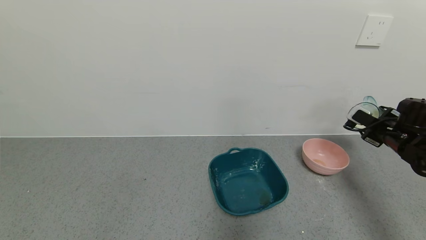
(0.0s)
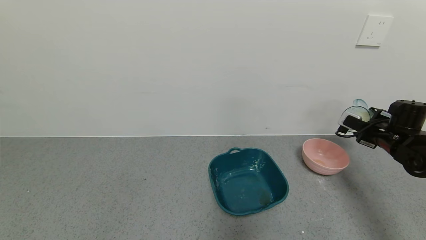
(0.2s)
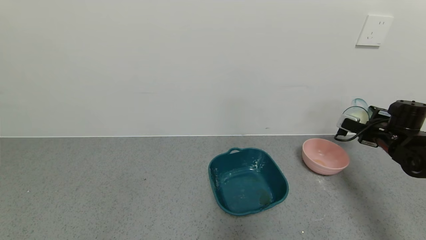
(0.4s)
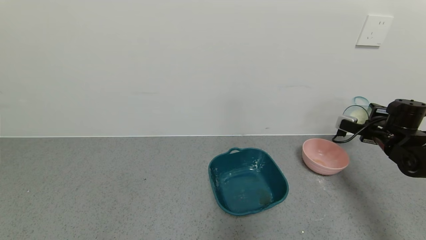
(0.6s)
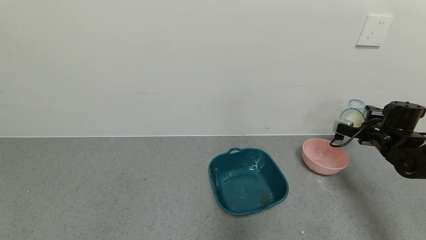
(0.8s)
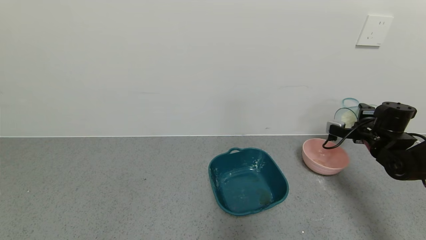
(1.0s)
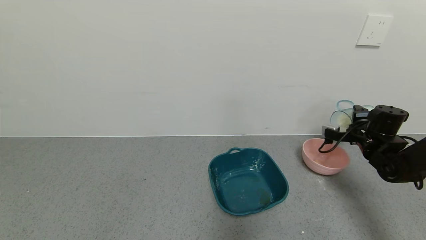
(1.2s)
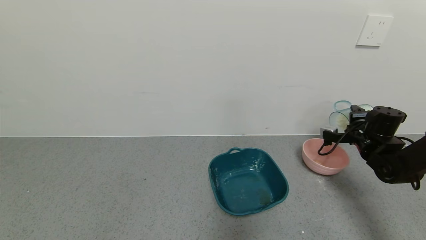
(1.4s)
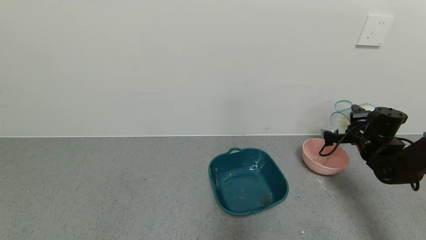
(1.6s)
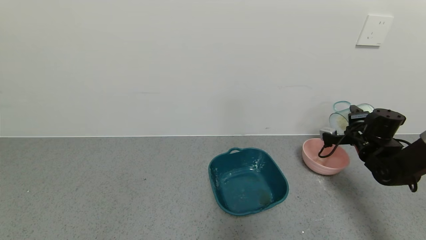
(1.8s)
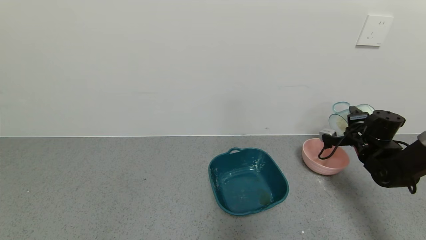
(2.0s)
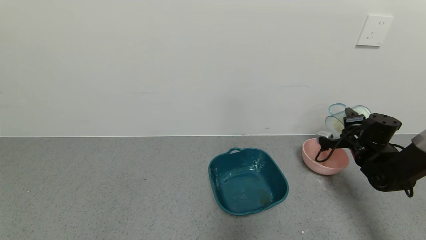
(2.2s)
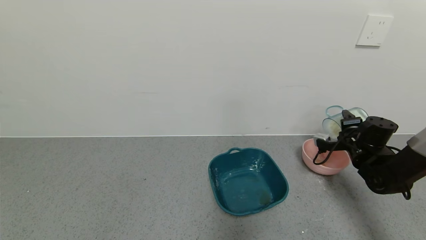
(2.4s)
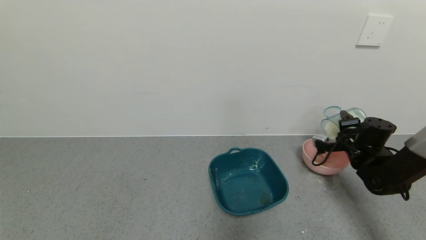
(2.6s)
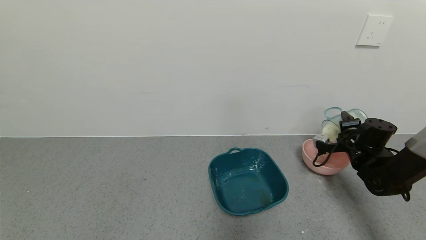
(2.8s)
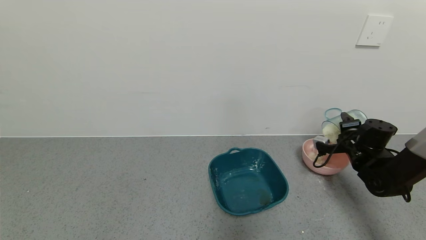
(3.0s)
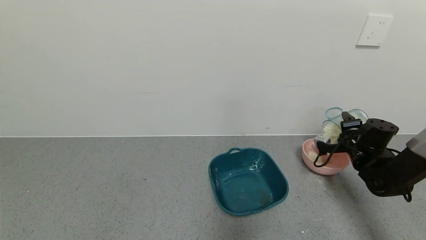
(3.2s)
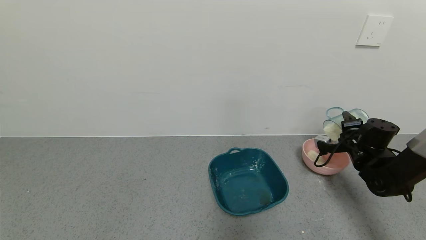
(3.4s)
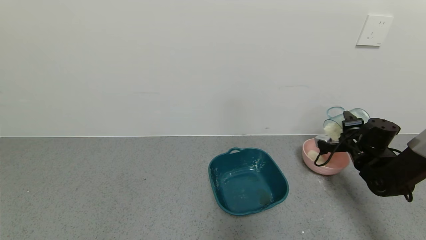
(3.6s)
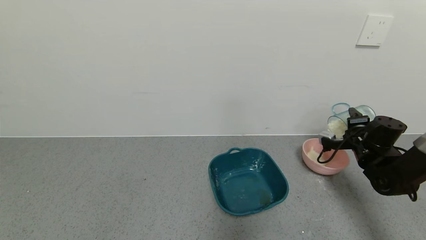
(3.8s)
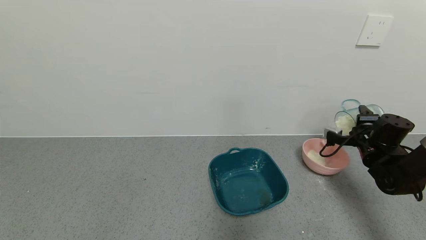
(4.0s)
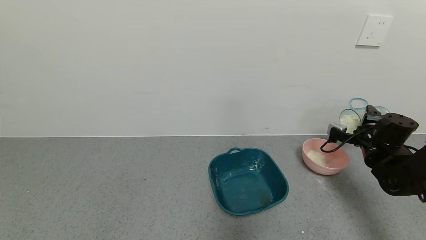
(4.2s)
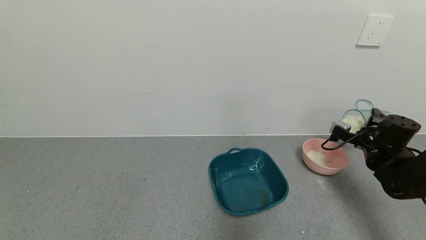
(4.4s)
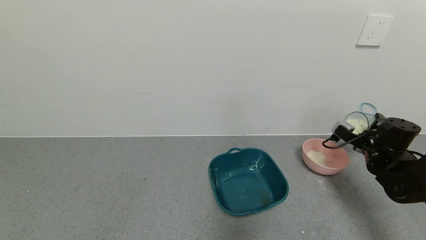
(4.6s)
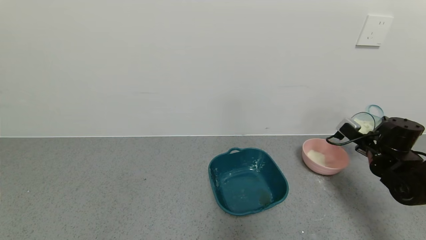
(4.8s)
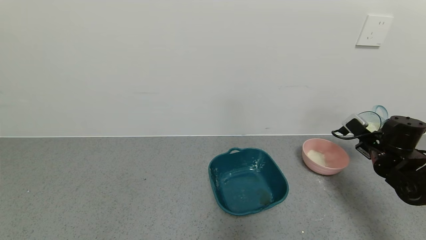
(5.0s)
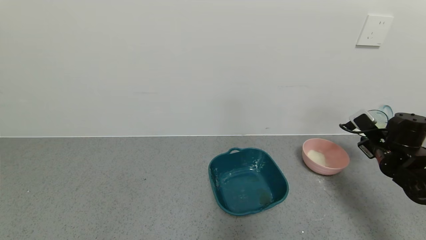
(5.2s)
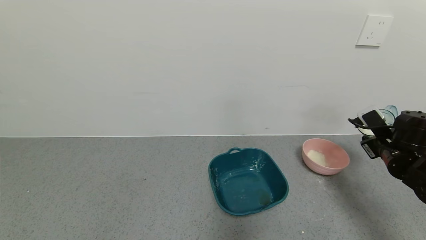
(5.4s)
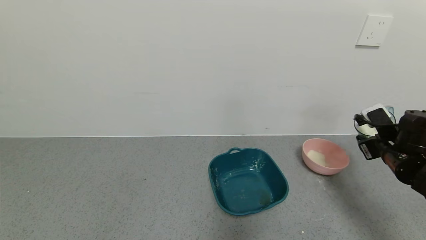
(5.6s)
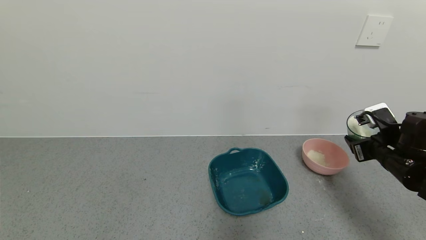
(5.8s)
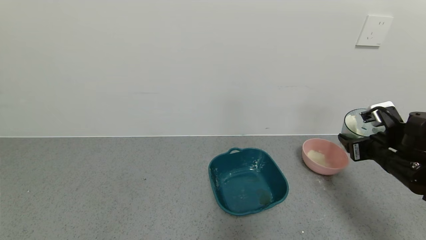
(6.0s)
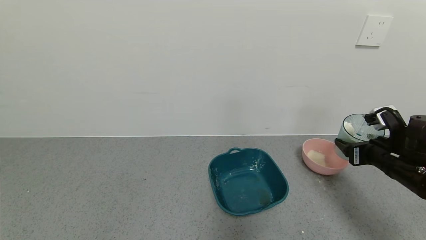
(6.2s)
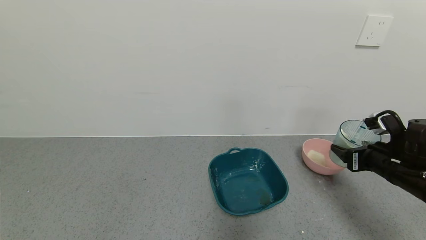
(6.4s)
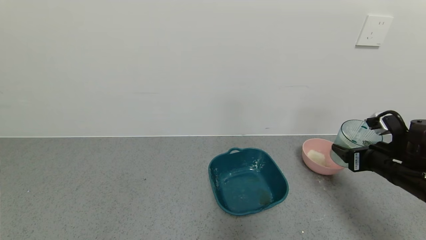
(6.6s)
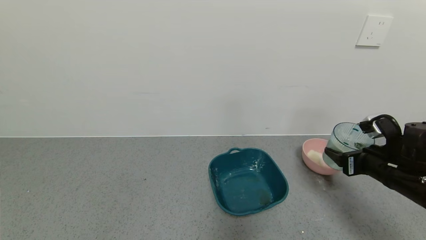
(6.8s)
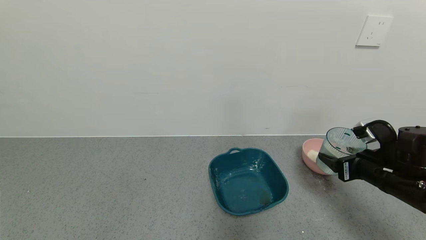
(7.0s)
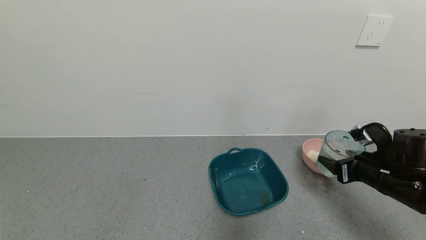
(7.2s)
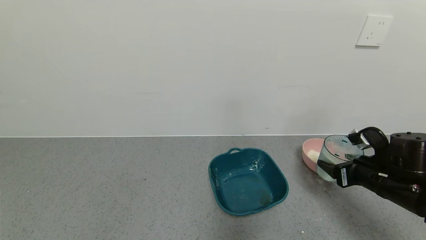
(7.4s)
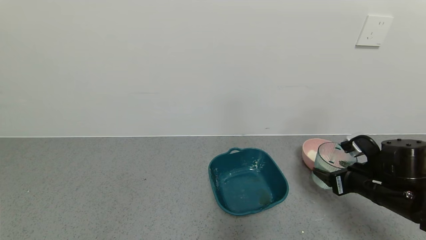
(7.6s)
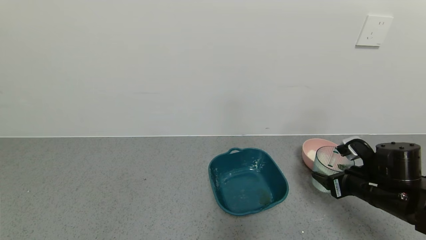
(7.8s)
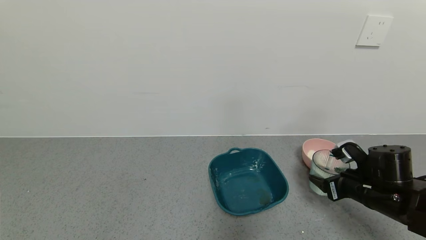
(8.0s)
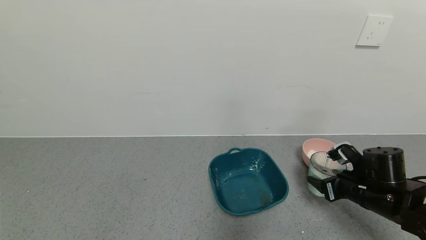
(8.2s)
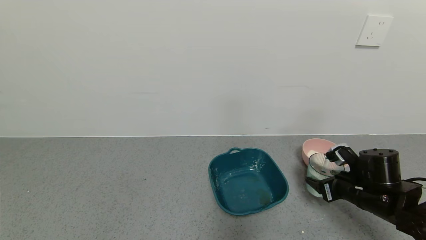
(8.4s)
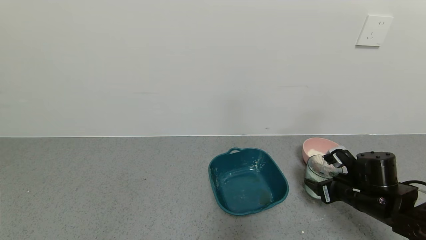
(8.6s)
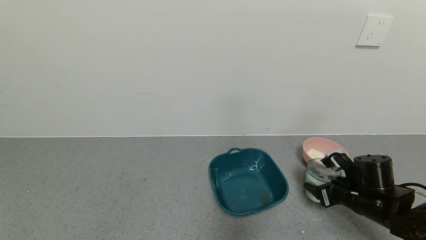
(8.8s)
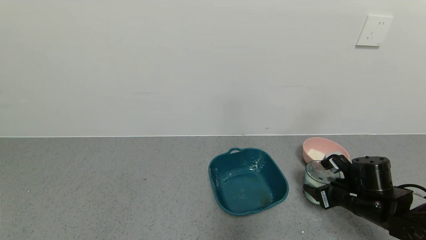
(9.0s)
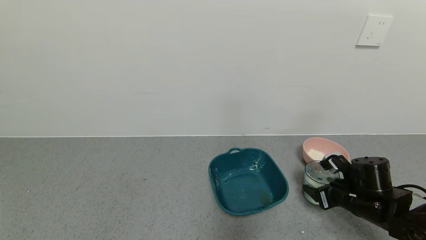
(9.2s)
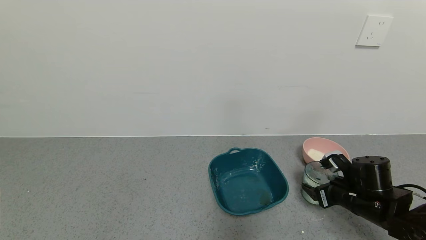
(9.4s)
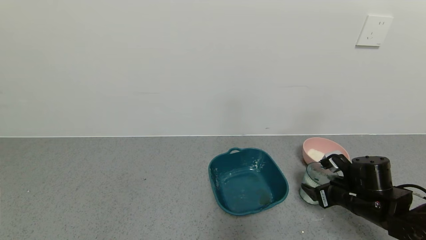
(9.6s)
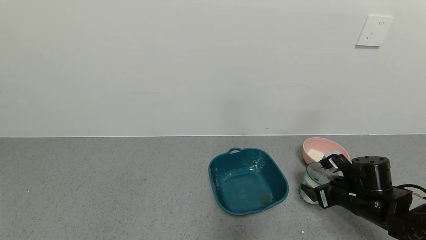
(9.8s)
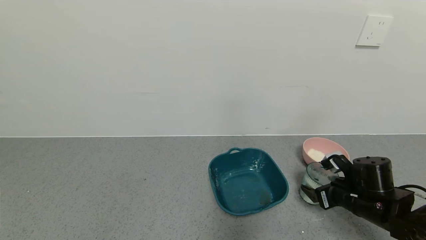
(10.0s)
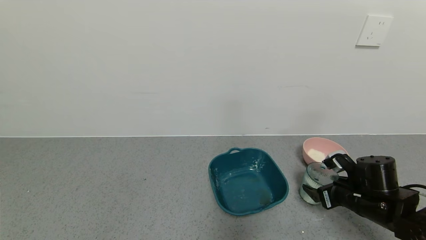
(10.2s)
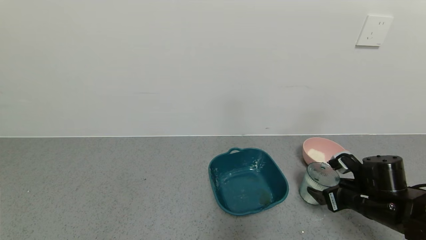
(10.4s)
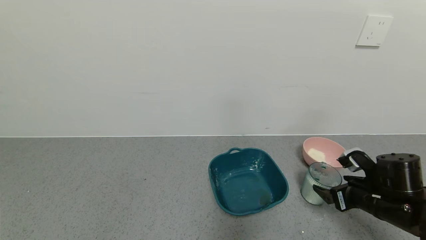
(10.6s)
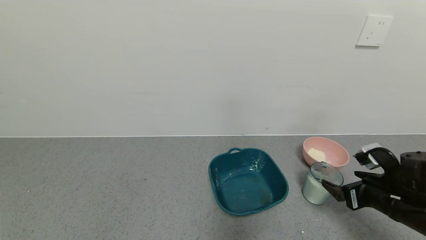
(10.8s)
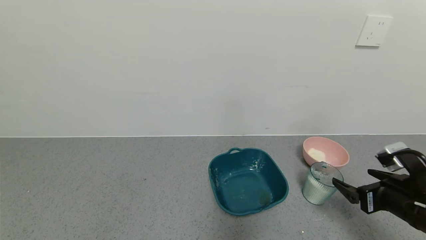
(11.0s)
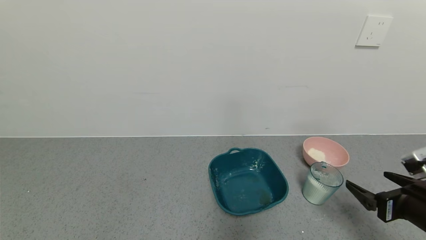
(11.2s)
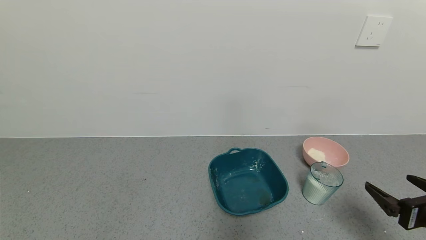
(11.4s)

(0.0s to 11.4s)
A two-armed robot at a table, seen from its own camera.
Task of the whole recording: use a gripper to pick up the cup and pour the powder into a bowl or tray.
Step, 0.0s - 4.0s: Pour the milk powder into the pink bowl with right gripper.
Step, 4.2s - 9.2s: Place blue cup with milk powder on the table with right gripper.
0.0s - 1.4s: The right gripper moves approximately 5 cm.
1.4s - 4.2s: There are only small adjustments of the grippers.
4.2s - 5.6s: The right gripper shifts approximately 10 cm backward.
5.6s - 7.2s: The right gripper ends up approximately 5 cm from where it was.
7.2s - 8.6s: The right gripper travels downward by some 5 cm.
8.6s - 10.0s: The right gripper opens up.
10.0s - 11.4s: The right gripper is displaced backward, upward and to the right by about 15 cm.

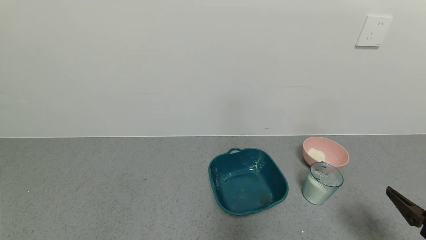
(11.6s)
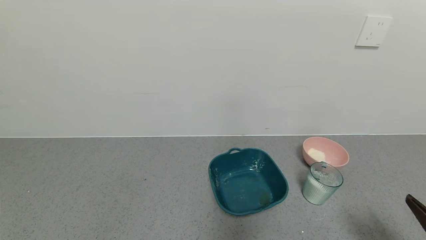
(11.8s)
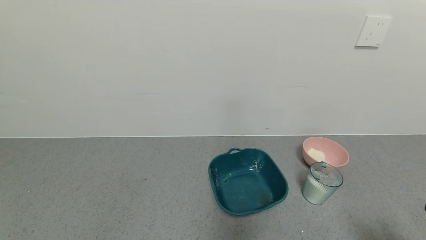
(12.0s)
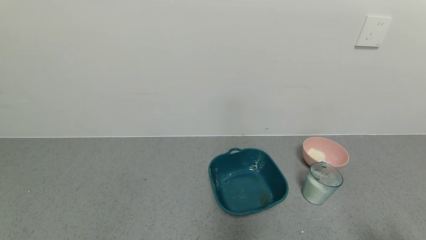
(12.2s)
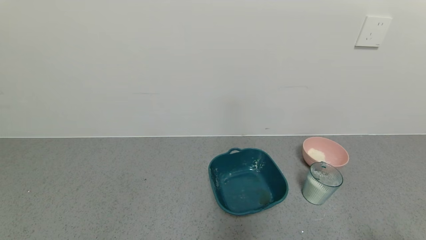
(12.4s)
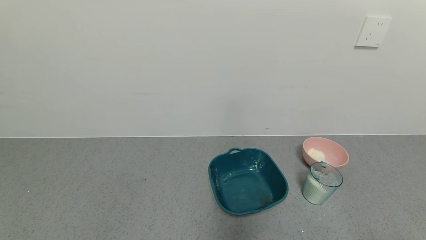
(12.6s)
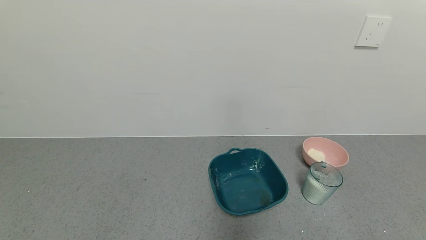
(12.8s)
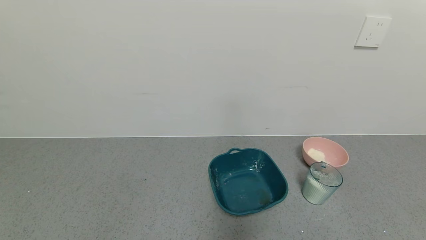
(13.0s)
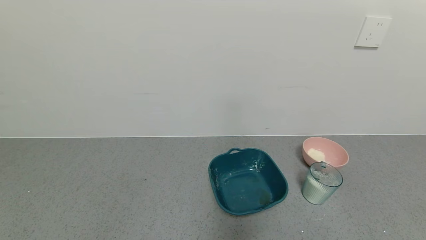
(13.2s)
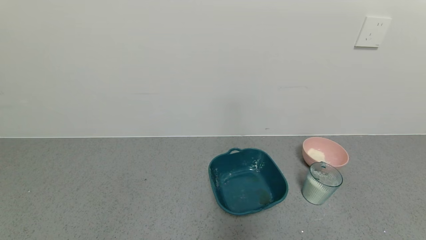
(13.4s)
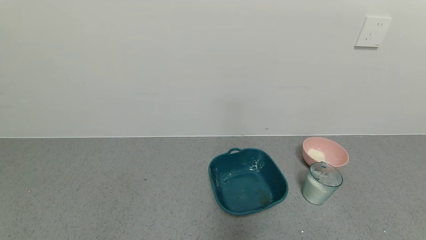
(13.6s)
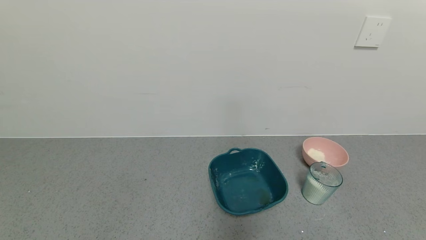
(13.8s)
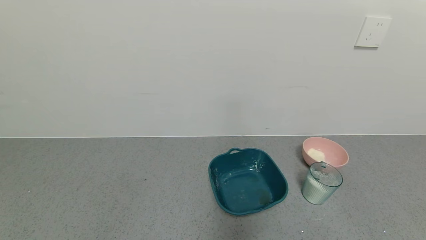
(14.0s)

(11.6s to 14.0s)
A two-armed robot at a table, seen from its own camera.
Task of the whole recording: use a gripper to pick up the cup and pour the powder into a bowl or tray.
11.6s - 12.8s: The right gripper moves backward, approximately 10 cm.

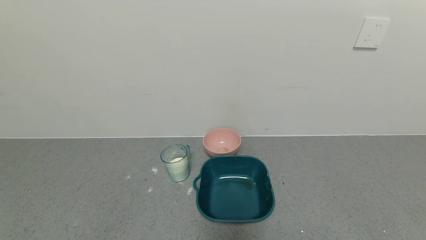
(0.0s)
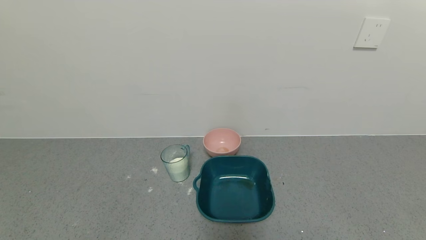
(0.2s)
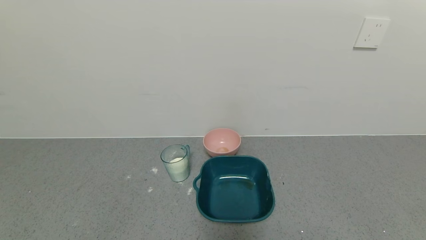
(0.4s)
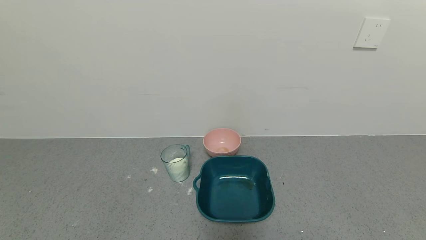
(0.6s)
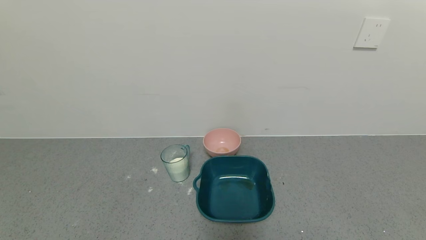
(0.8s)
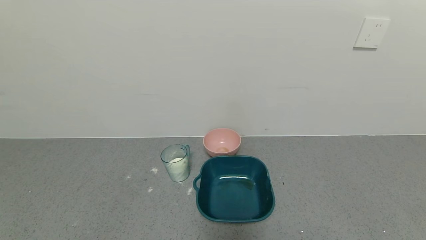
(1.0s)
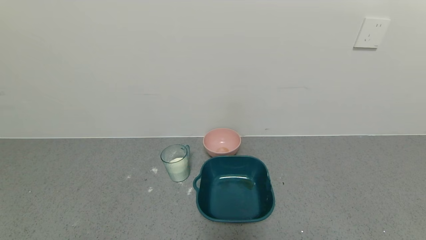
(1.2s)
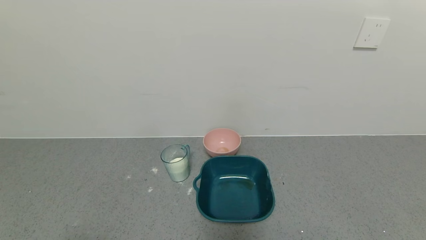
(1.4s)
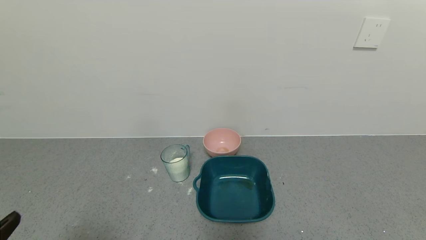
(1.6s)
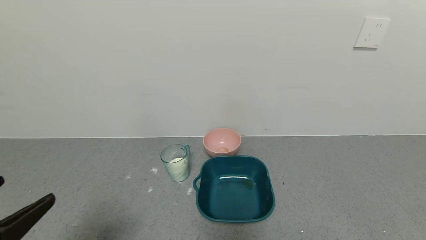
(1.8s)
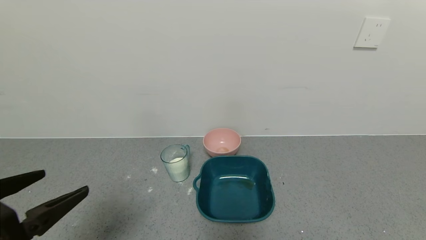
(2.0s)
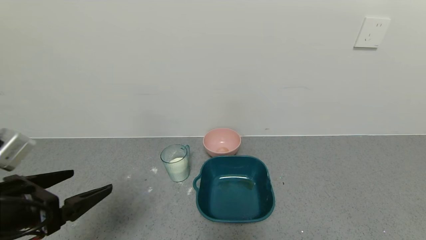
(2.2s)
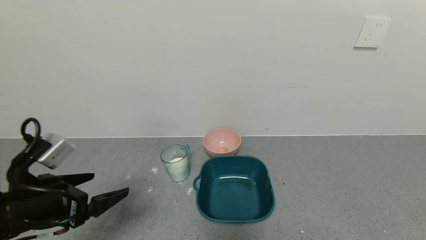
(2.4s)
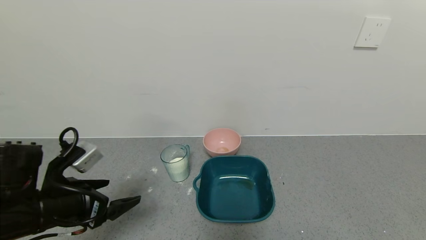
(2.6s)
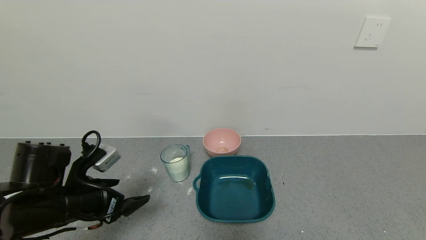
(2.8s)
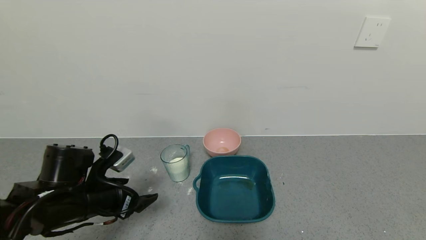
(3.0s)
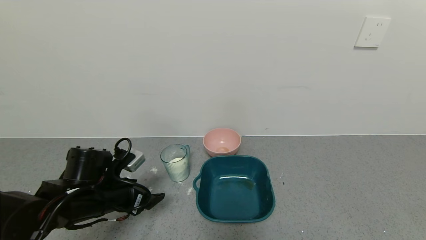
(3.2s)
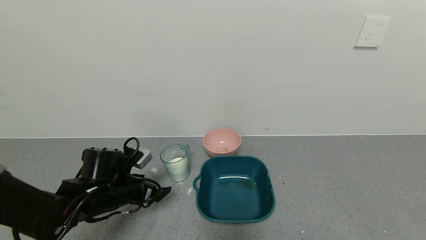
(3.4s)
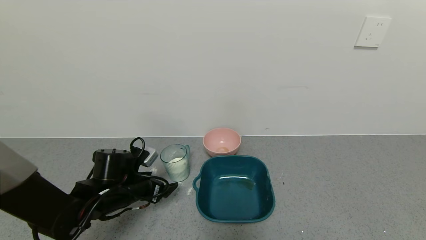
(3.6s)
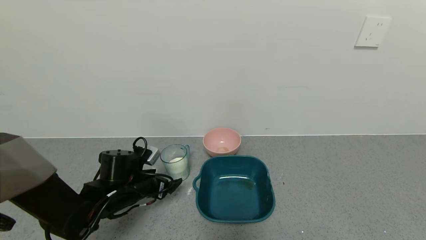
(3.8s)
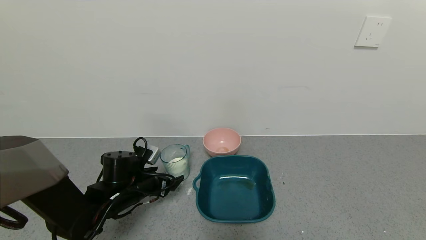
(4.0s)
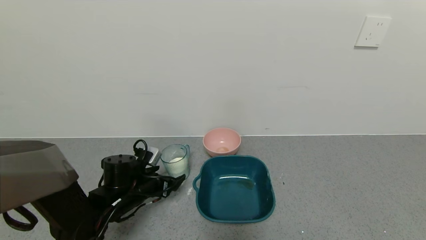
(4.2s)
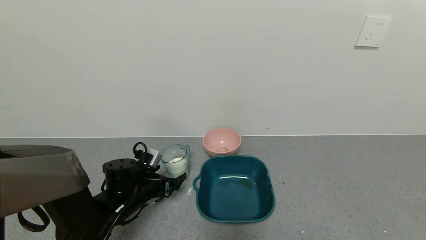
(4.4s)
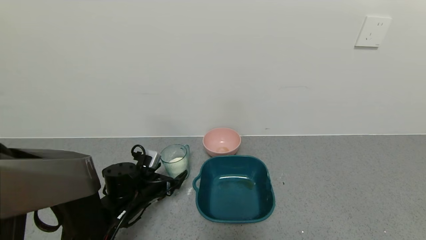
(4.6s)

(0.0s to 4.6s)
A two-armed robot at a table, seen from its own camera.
Task of the whole recording: use a gripper to pick up the cup and pour the powder into a bowl or tray.
1.6s - 3.0s: The left gripper travels forward and downward by some 25 cm.
3.0s - 4.6s: The left gripper shifts approximately 10 cm downward and forward.
